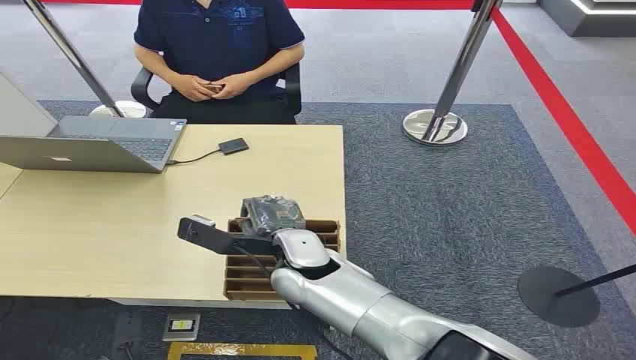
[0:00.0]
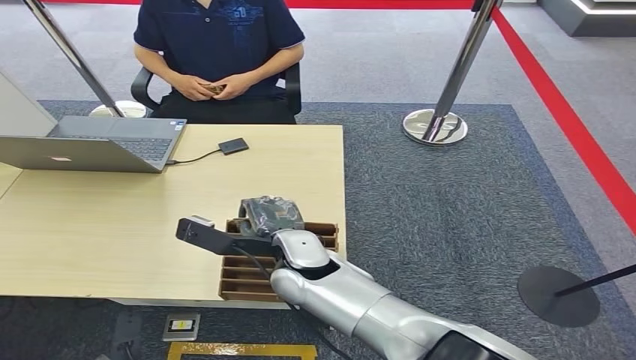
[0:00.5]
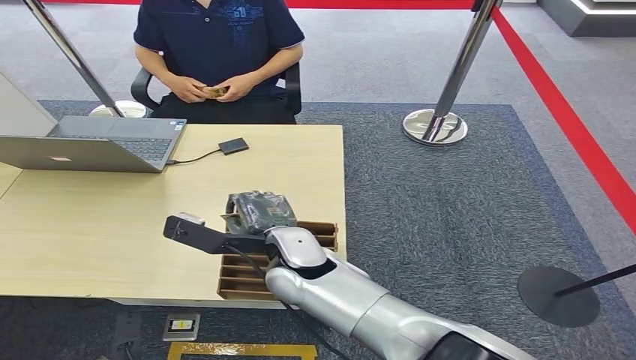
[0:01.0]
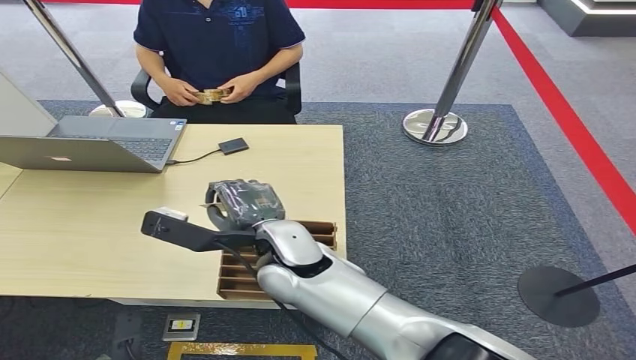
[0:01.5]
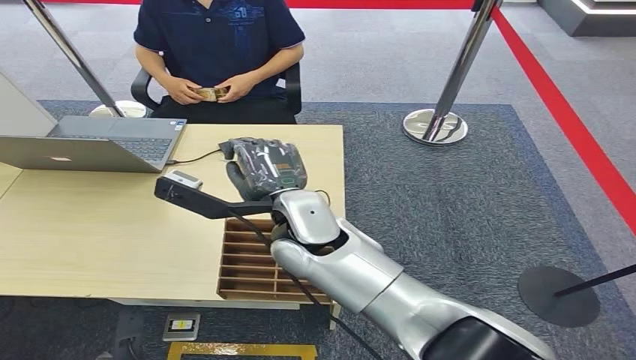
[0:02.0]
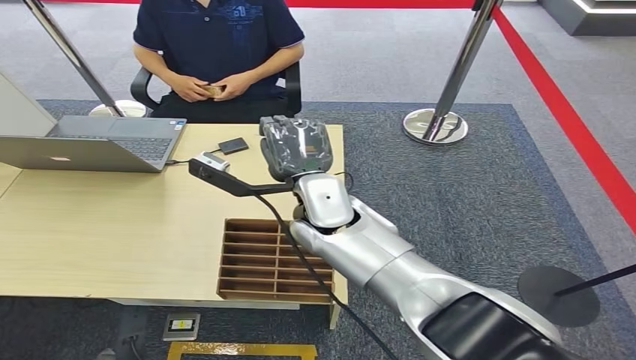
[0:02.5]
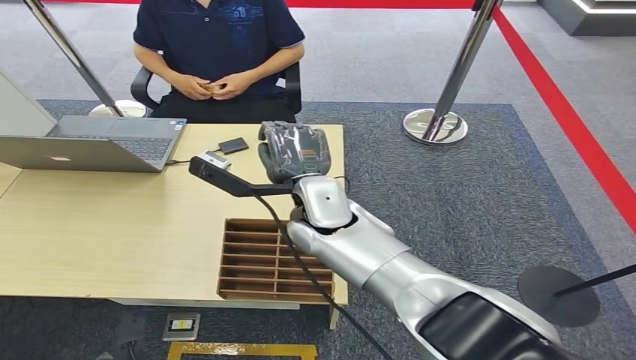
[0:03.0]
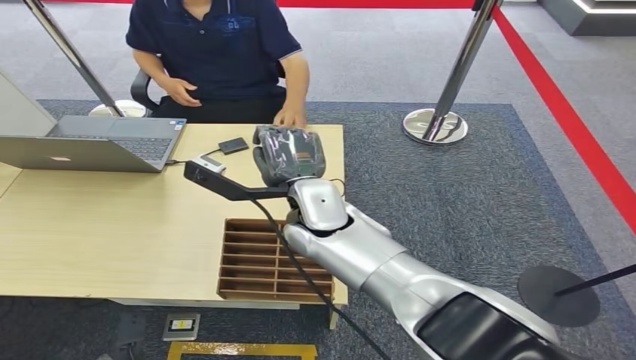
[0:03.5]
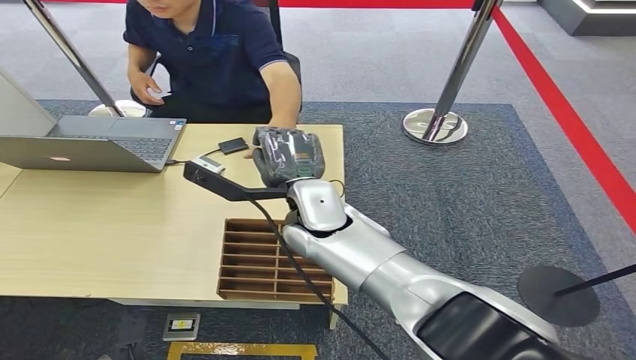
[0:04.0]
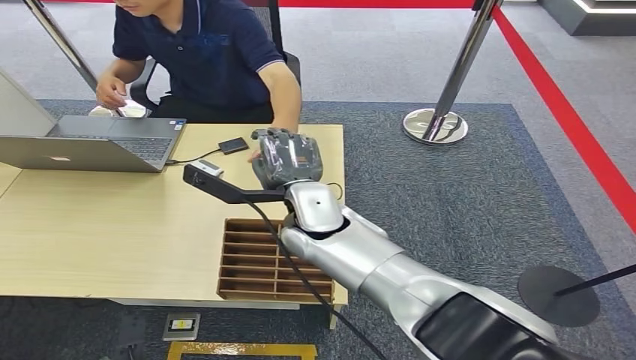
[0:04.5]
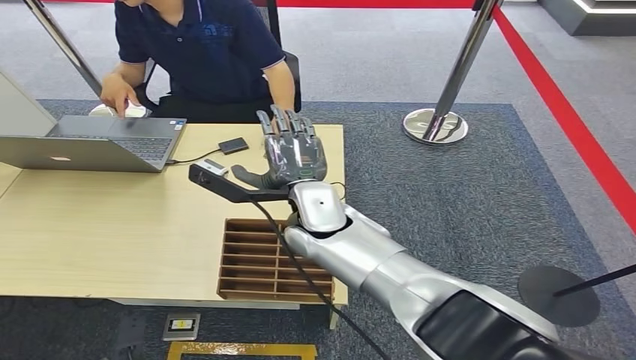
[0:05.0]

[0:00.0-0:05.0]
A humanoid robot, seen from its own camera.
Task of the whole recording: Pick up the card and hand it over to the target person.
Step, 0:00.0 to 0:02.0: Pick up the key card from the card box.
Step, 0:02.5 to 0:05.0: Hand the key card to the target.
0:02.5 to 0:05.0: The hands stay close to where they were, moving slightly.

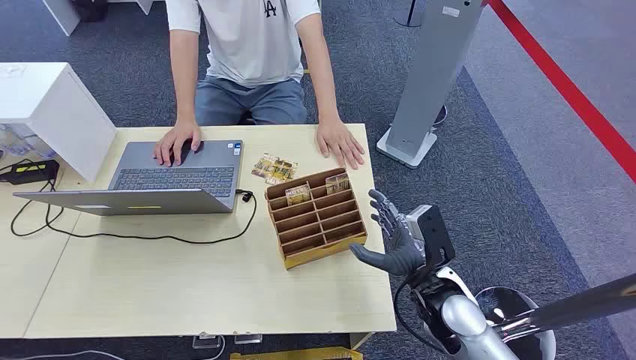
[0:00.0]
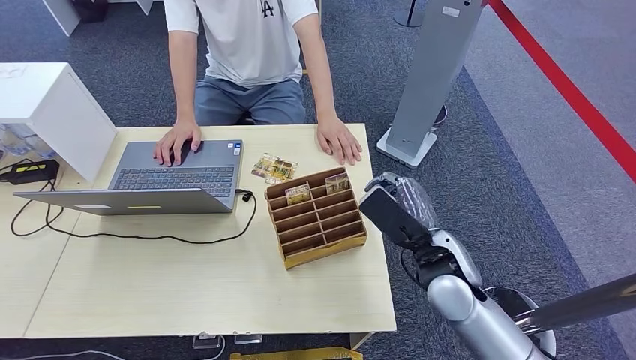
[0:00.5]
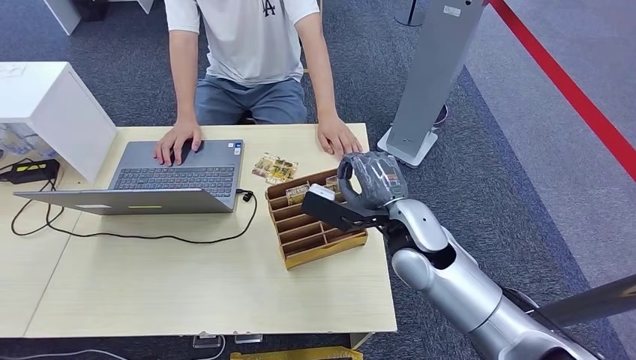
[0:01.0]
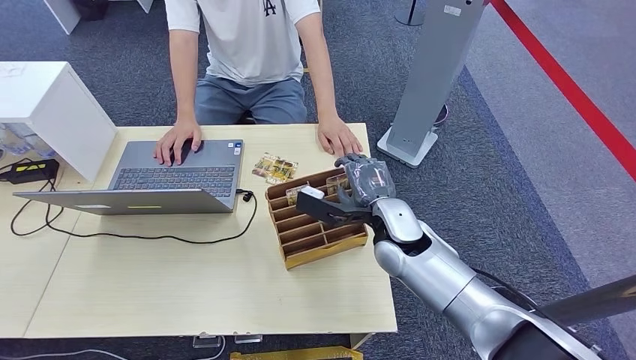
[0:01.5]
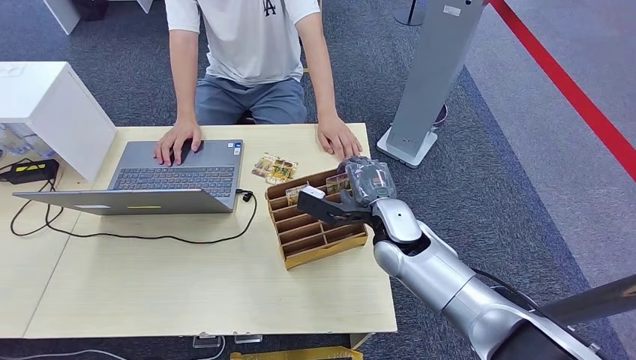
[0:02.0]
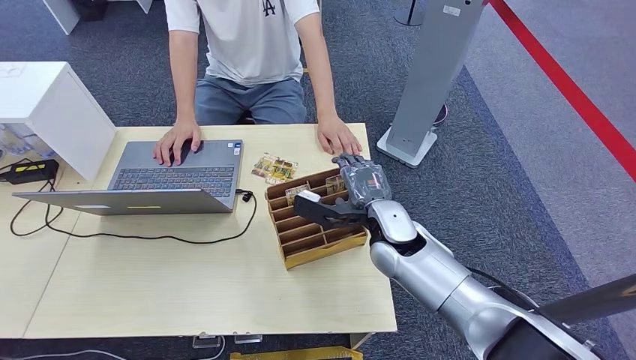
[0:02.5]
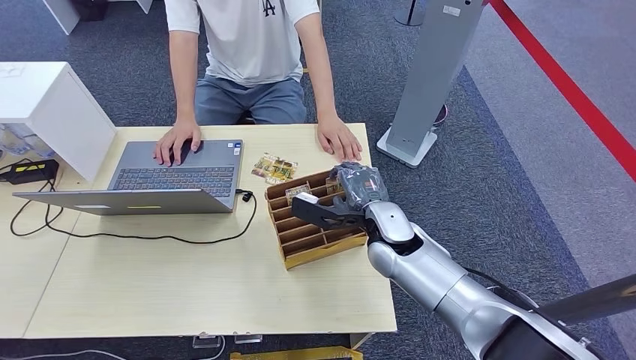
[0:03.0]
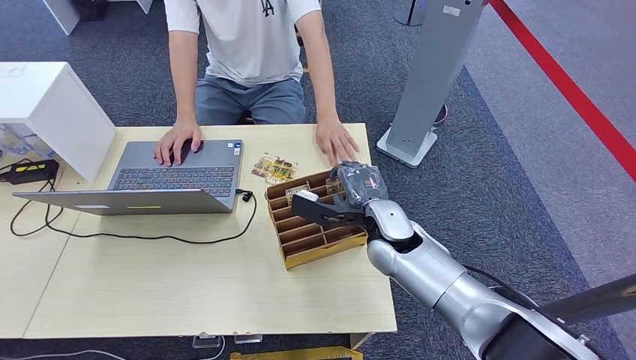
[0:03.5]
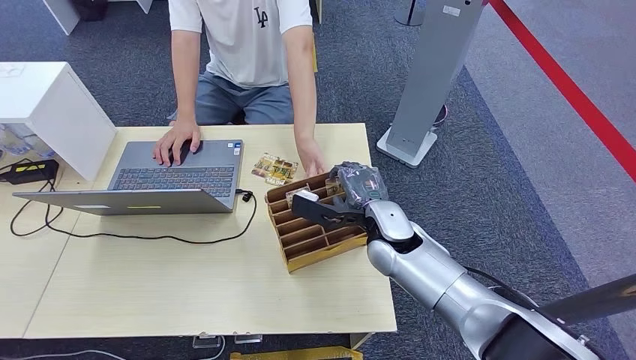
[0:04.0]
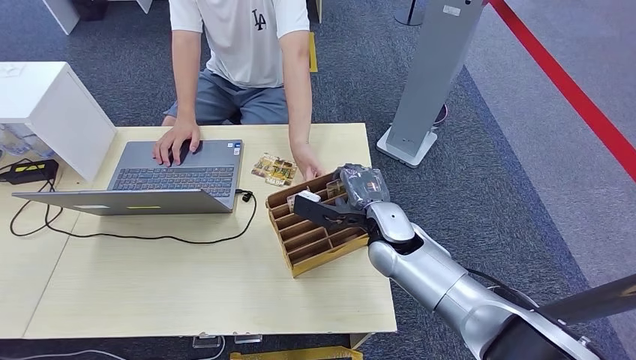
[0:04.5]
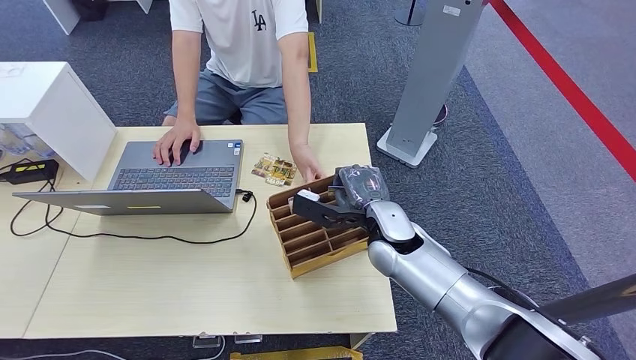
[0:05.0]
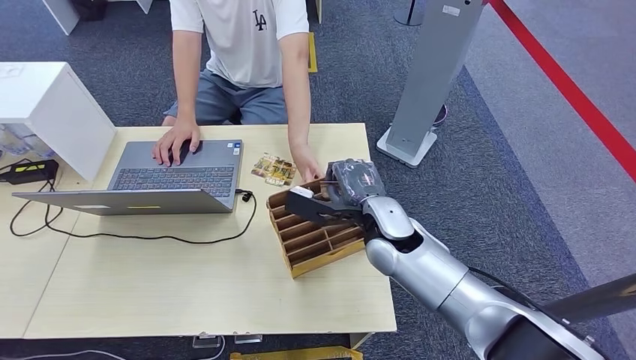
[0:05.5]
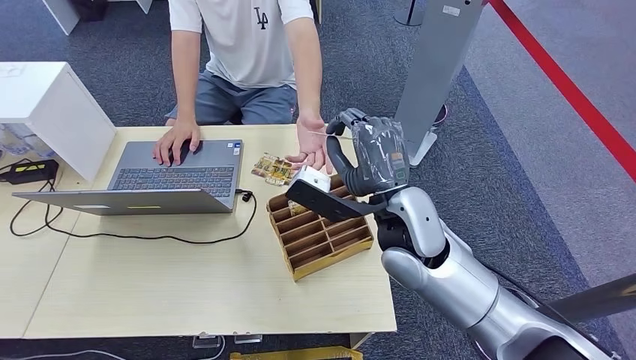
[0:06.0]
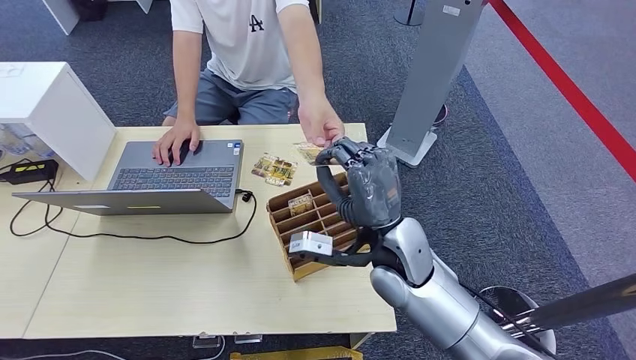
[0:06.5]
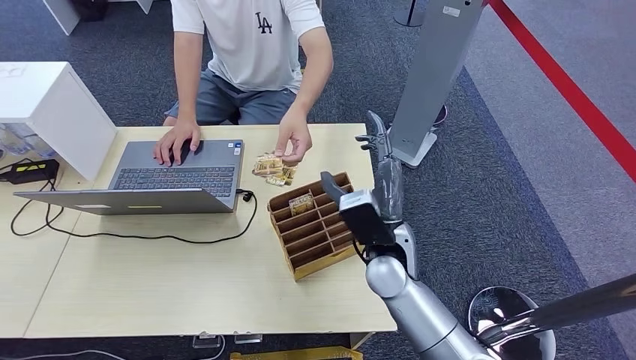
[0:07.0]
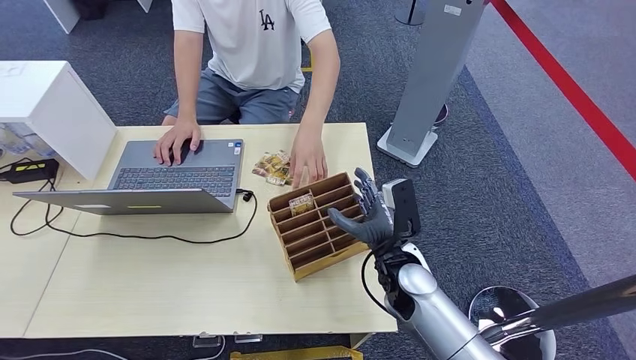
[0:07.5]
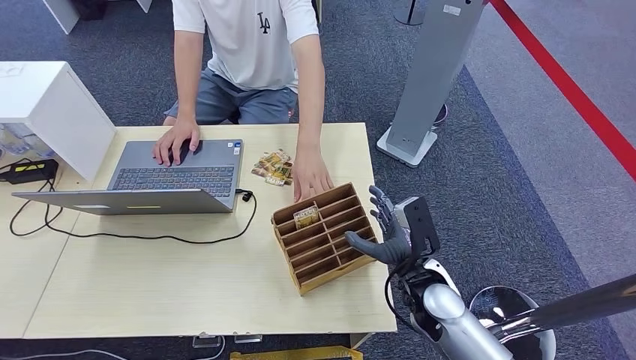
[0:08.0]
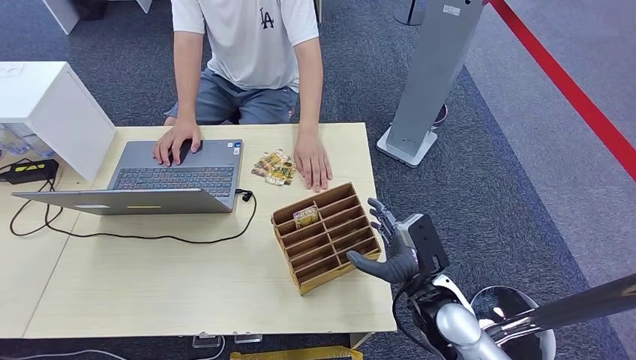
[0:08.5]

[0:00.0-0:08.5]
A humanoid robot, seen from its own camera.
Task of the whole recording: Pick up the card and hand it over to the target person.
Step, 0:00.0 to 0:05.5: Pick up the key card from the card box.
Step, 0:06.0 to 0:08.5: Hand the key card to the target.
0:02.0 to 0:04.0: Neither hand changes place.
0:04.0 to 0:06.5: The right hand goes upward and returns, roughly 10 cm each way.
0:06.5 to 0:08.5: The right hand moves to the right, backward and downward, roughly 15 cm.
